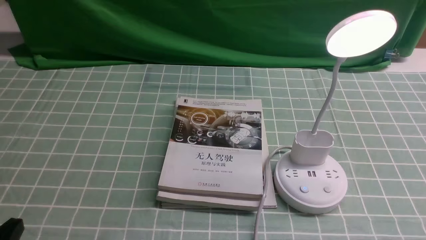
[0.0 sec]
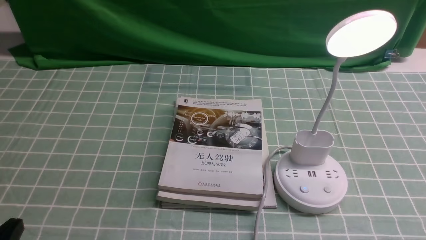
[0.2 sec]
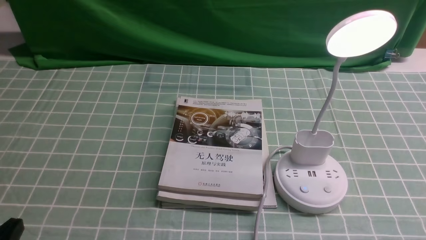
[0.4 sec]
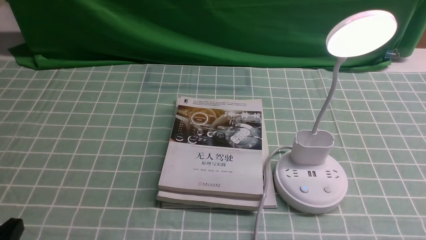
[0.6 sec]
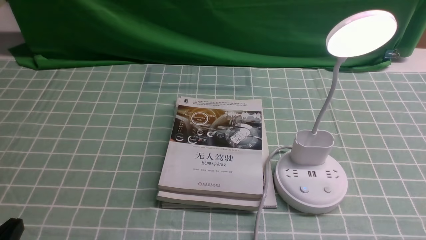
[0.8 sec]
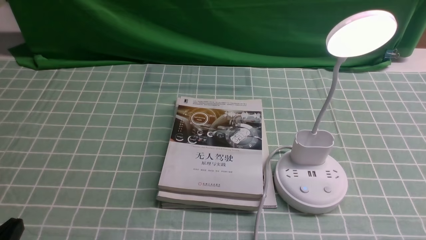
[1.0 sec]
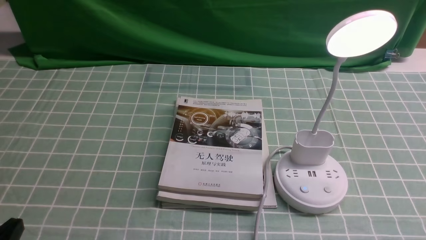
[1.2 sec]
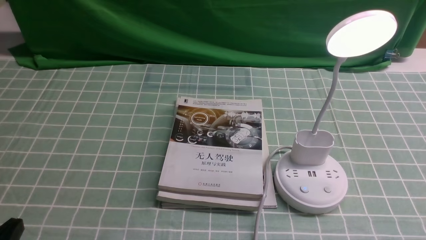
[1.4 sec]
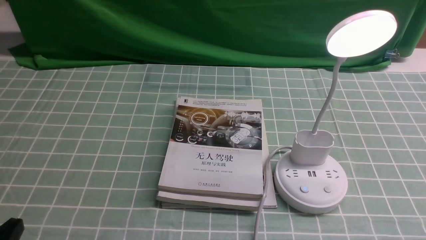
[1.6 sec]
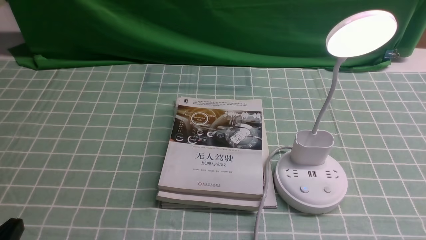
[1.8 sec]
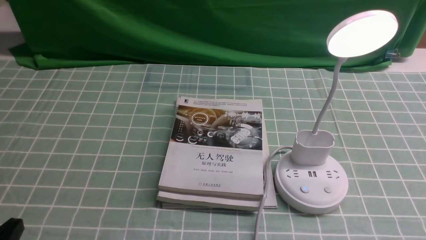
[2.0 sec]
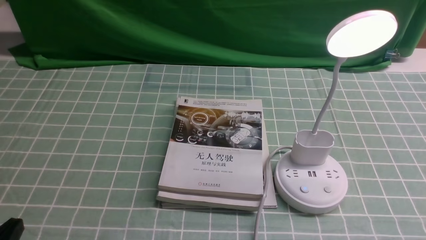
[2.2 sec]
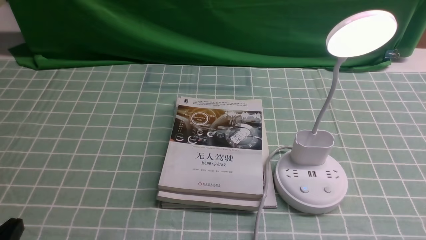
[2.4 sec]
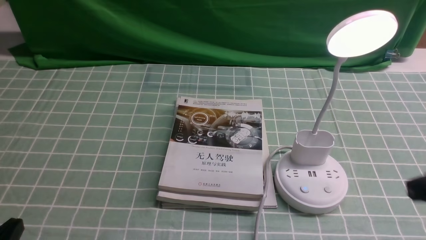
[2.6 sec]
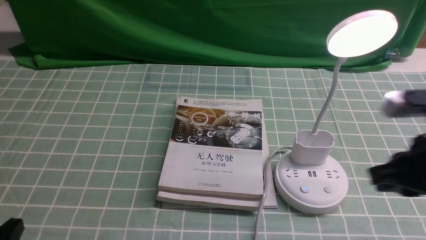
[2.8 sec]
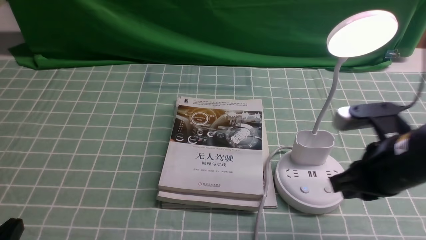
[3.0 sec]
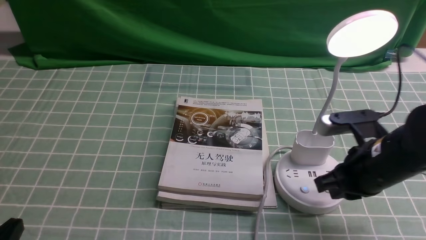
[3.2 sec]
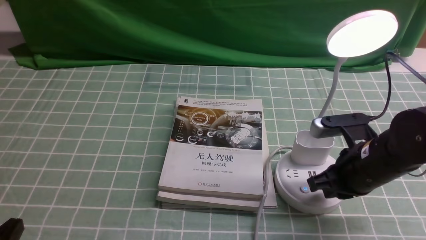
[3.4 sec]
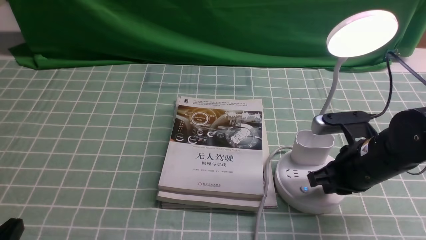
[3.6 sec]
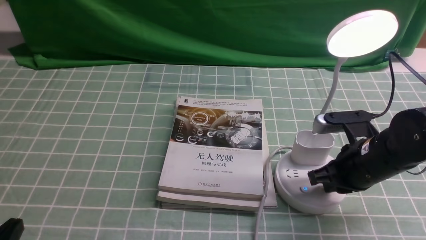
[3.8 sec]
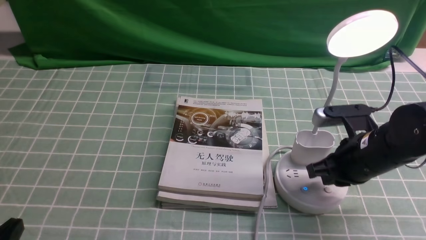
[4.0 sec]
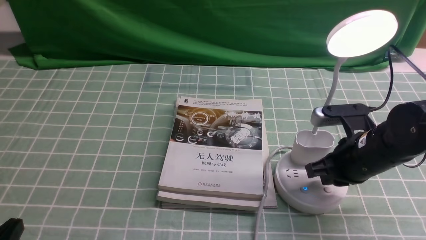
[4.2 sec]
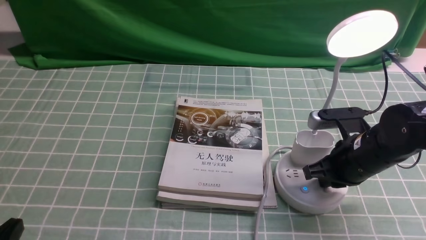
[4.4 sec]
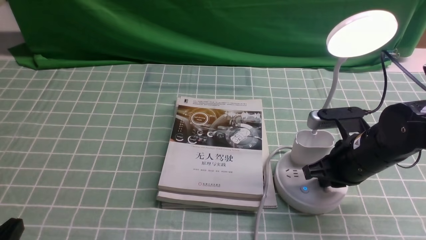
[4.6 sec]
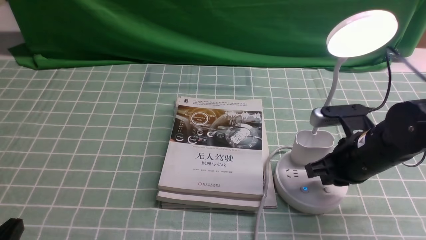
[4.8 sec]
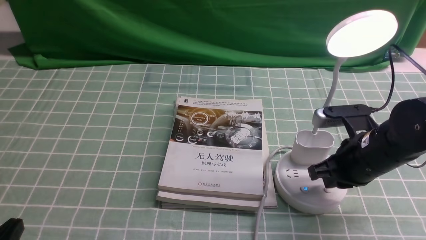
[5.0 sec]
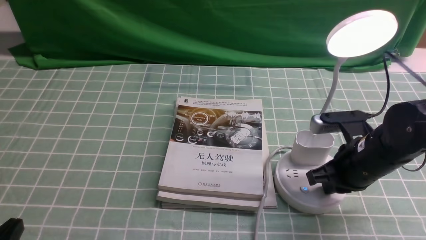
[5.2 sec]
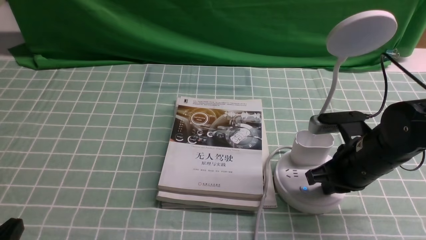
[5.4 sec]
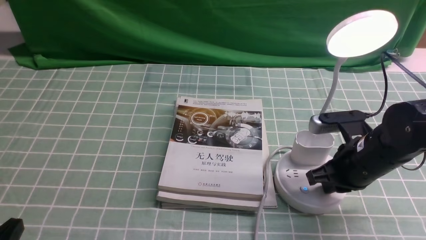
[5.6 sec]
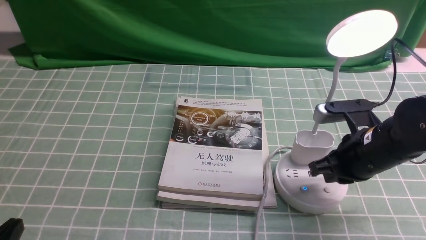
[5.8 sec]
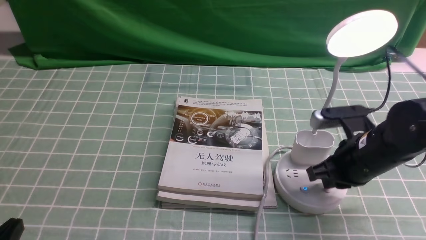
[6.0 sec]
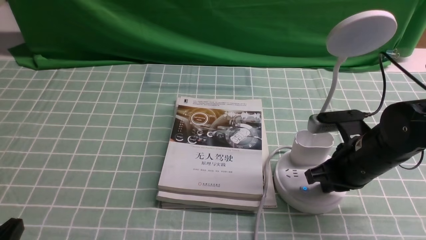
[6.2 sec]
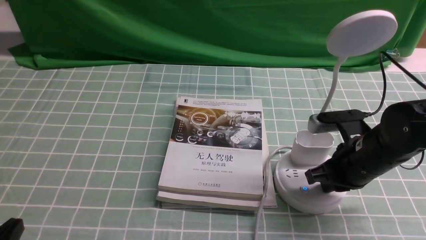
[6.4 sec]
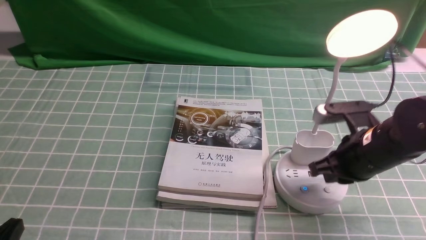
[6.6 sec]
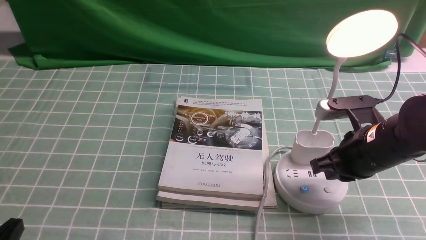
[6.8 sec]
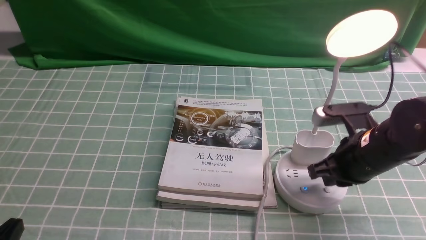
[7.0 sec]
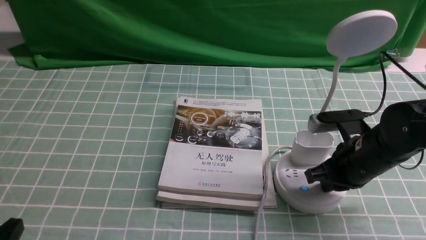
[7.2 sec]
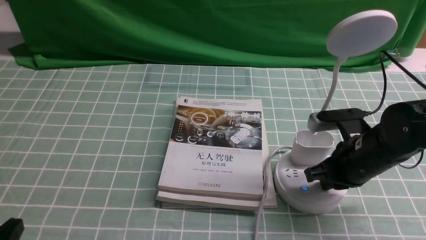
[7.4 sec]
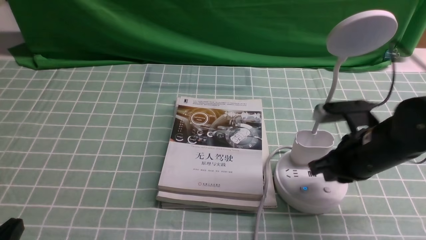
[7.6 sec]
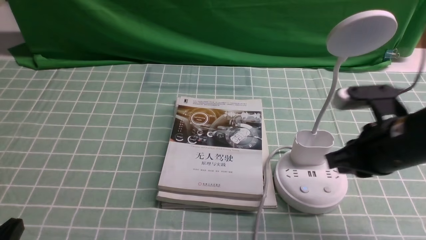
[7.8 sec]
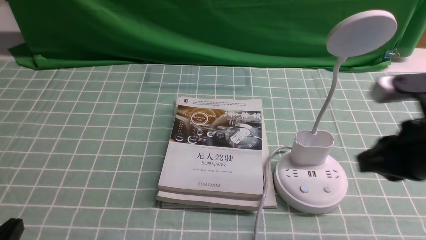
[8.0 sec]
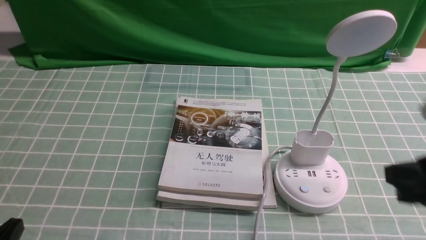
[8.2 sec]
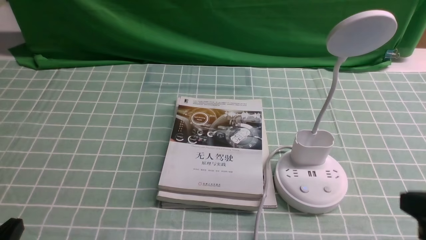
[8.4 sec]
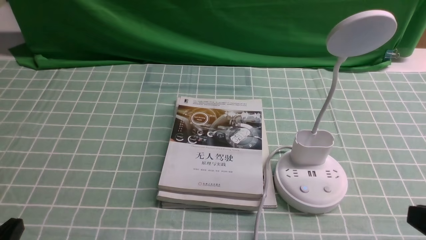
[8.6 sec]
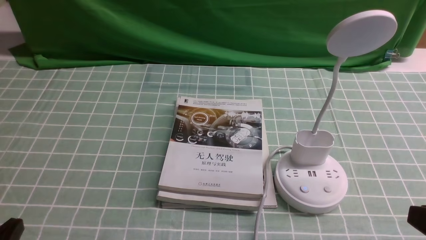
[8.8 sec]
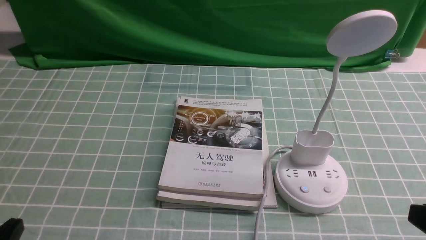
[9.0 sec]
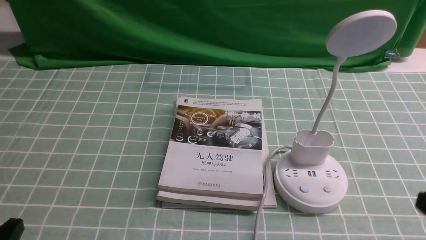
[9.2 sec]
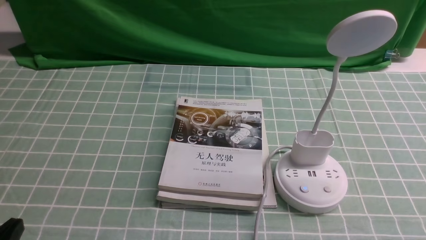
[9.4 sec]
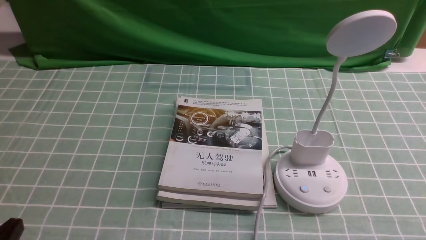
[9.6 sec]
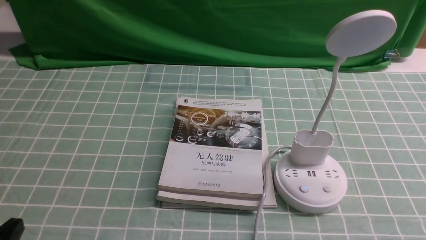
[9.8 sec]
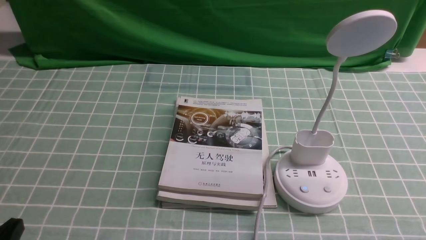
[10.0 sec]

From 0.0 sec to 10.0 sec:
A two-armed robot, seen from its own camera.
Task of the whole recording: turn off the desk lamp on the blue coffee tablecloth by hand.
Step, from 0.0 sec to 7.6 sec: use the right arm to press the button switch on the lamp holder.
From 1.4 sec to 2.8 sec: The right gripper is displaced forward, upward and to the left by some 15 cm, and closes.
From 2.8 sec to 4.2 sec: The right gripper goes some 15 cm downward and forward.
From 4.2 sec to 5.8 sec: Both grippers stay put.
From 5.8 sec to 7.2 sec: Both grippers stay about where they are.
From 7.2 sec to 8.6 sec: The right gripper travels backward and upward by roughly 20 cm.

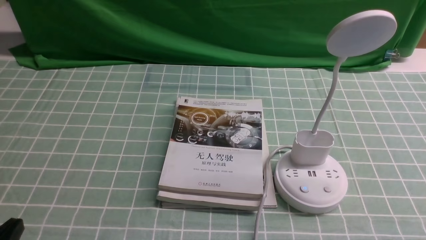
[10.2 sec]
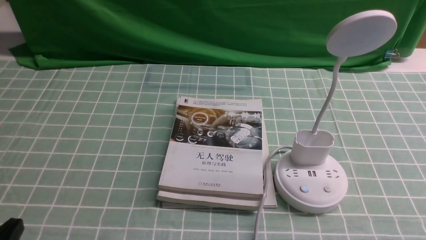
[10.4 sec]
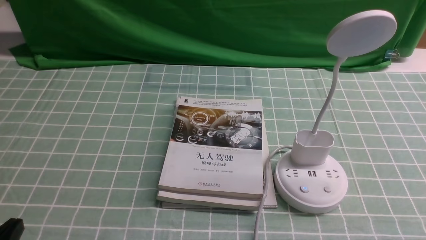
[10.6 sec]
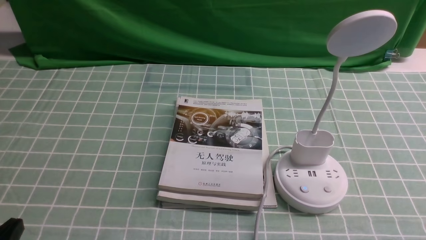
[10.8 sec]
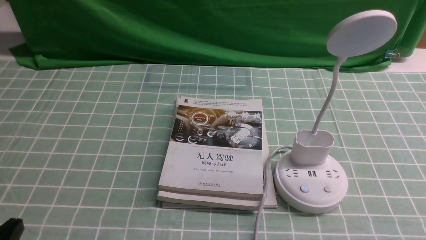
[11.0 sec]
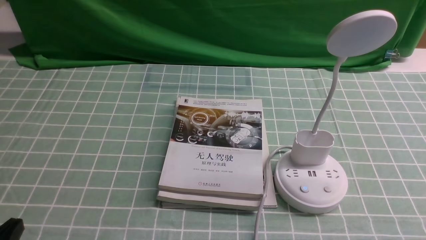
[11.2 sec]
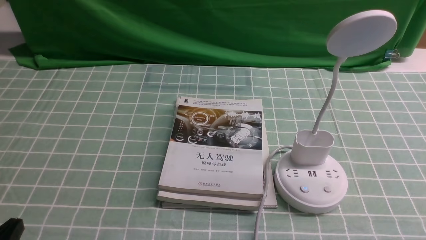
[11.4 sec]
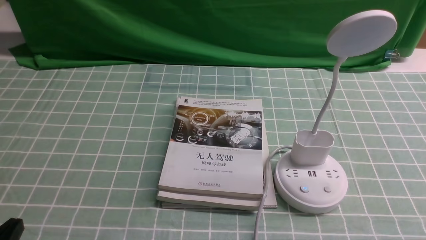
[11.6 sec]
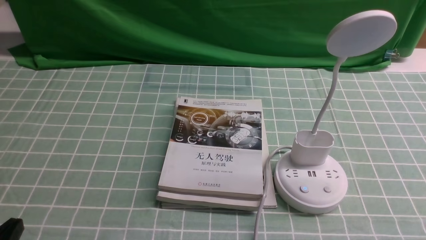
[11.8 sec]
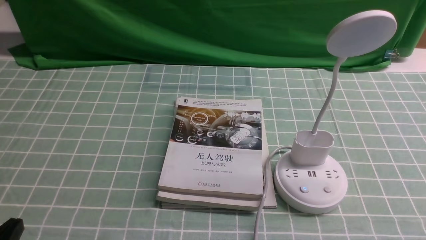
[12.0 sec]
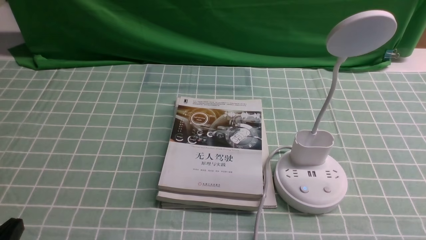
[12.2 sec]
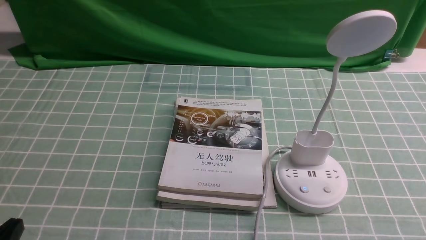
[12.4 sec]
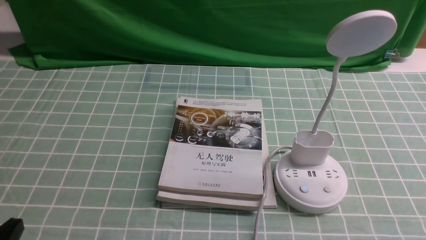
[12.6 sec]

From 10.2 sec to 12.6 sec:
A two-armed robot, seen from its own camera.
Task of the whole recording: turn off the desk lamp on the blue coffee tablecloth by hand.
From 10.2 sec to 11.4 sec: Neither gripper changes place.
